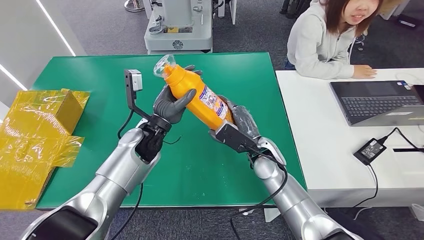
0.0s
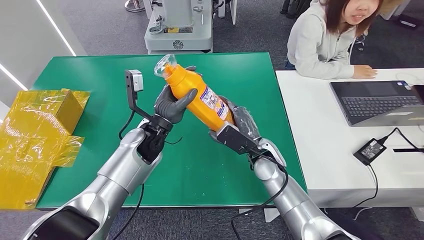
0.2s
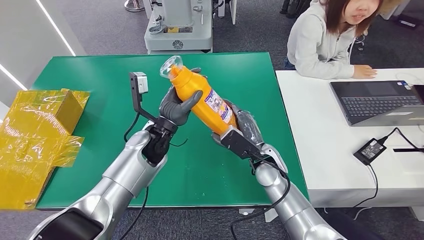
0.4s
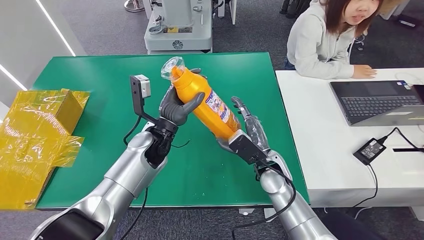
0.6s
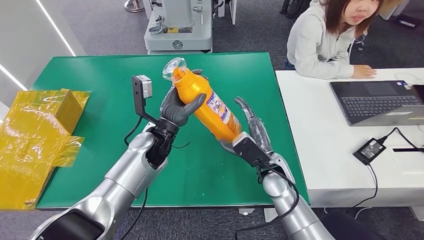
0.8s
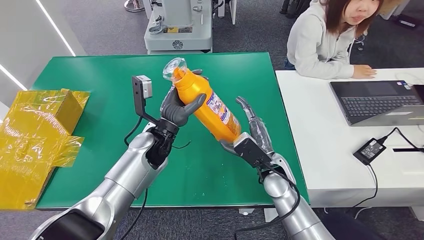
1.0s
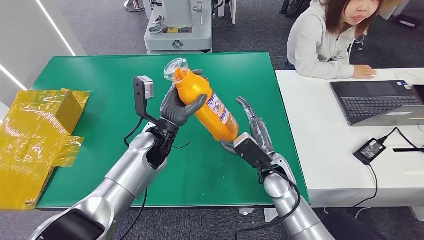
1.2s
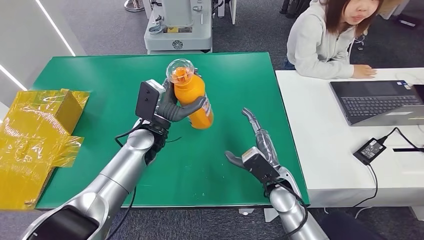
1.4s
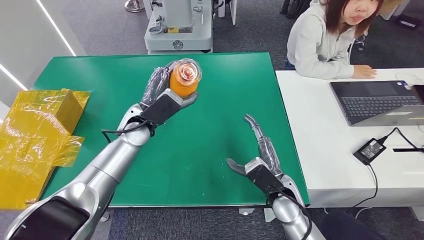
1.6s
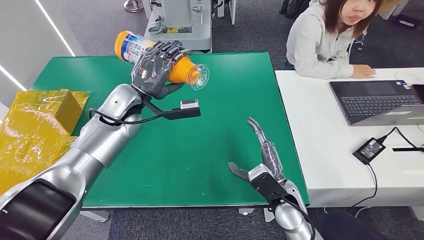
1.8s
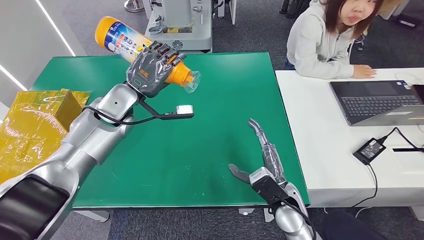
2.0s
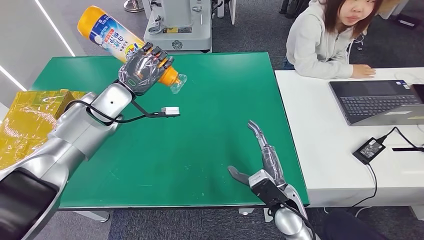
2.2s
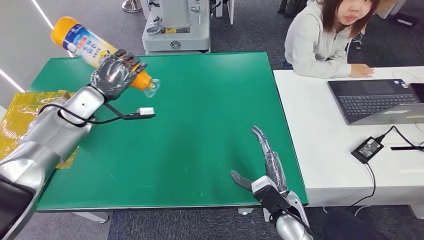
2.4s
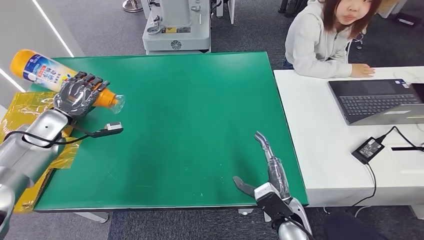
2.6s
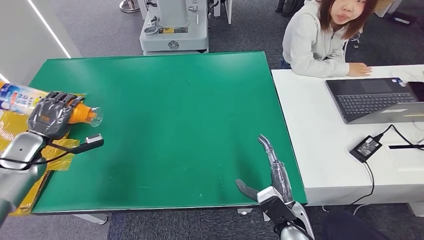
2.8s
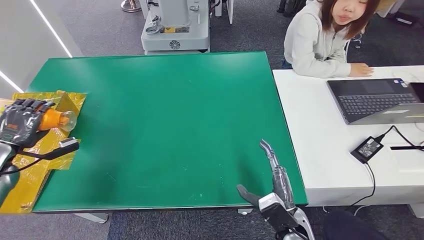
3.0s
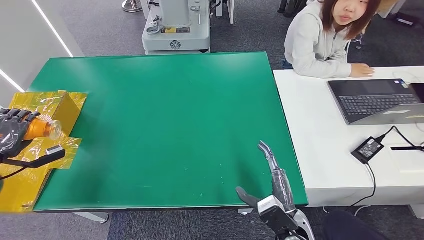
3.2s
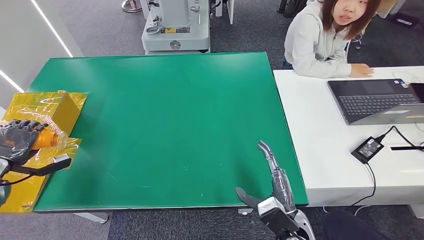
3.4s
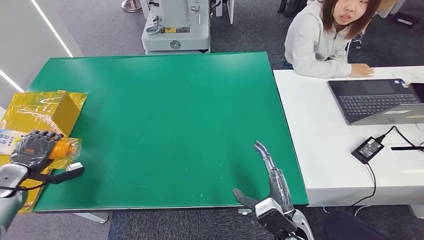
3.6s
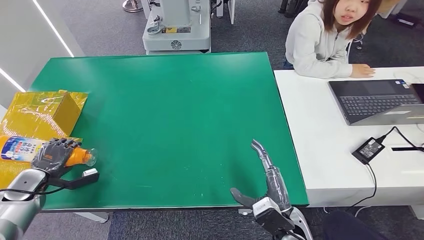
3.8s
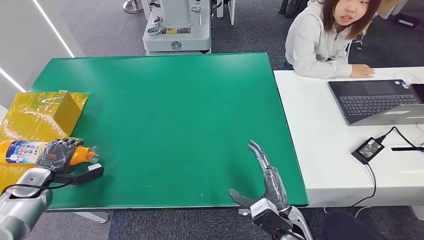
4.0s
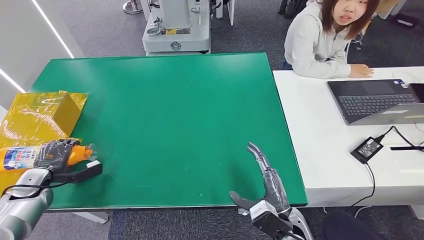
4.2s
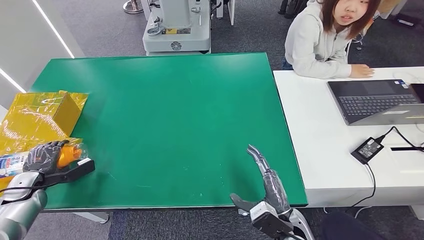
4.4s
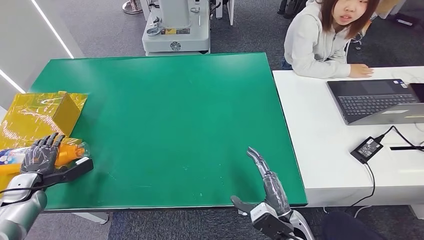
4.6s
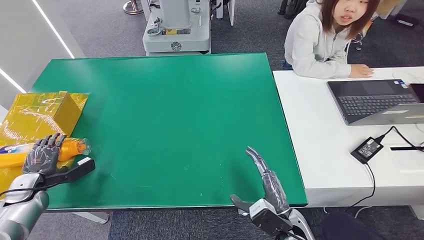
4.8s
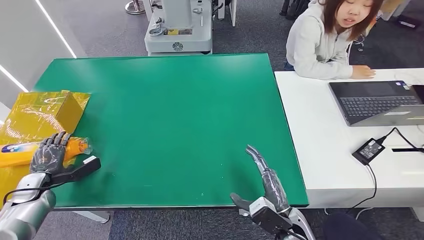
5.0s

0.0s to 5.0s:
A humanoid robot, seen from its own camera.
Step, 0.0s to 4.8s: Turn the bottle to the front side.
0.0s to 1.6s: The right hand moves backward, roughly 10 cm.
3.4s to 5.0s: The left hand heads downward and to the right, covering approximately 10 cm.
